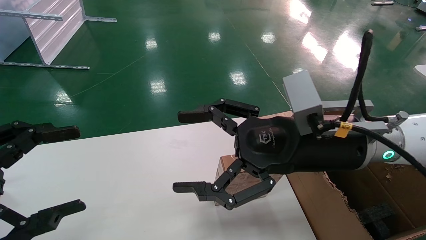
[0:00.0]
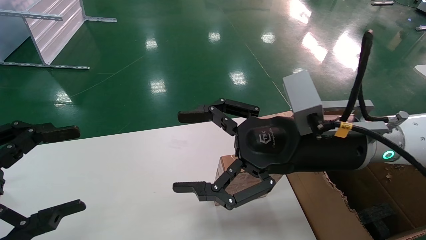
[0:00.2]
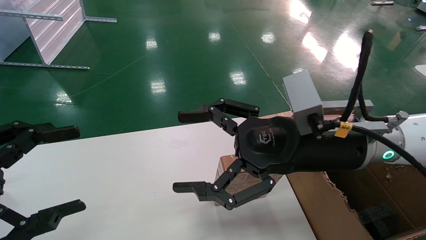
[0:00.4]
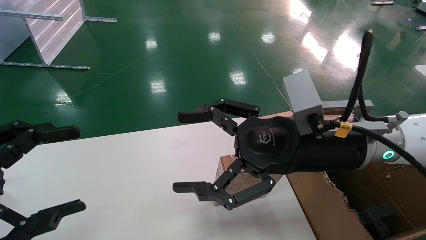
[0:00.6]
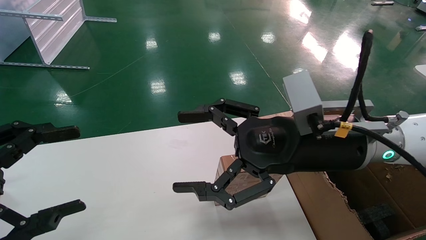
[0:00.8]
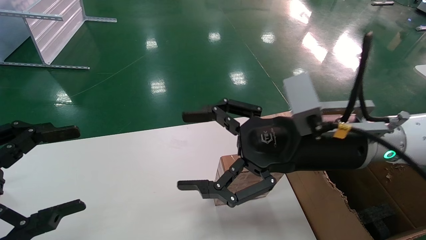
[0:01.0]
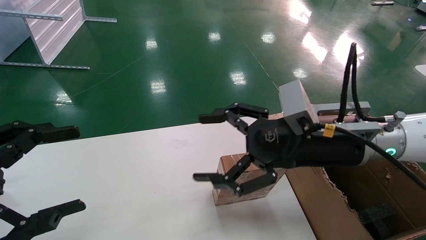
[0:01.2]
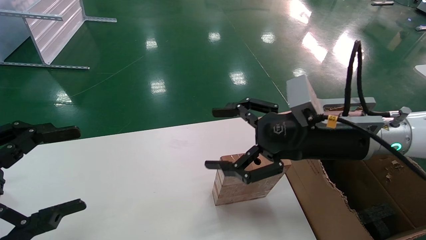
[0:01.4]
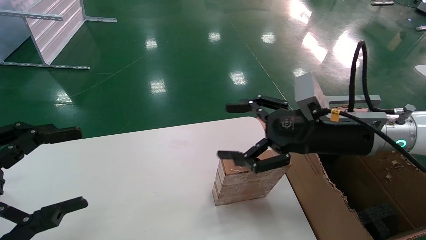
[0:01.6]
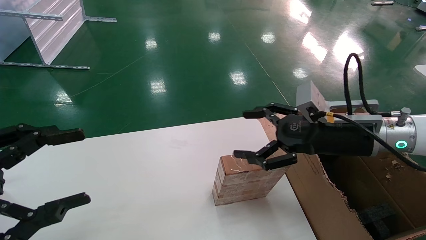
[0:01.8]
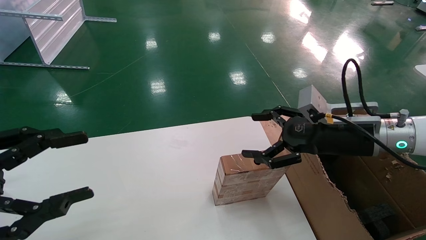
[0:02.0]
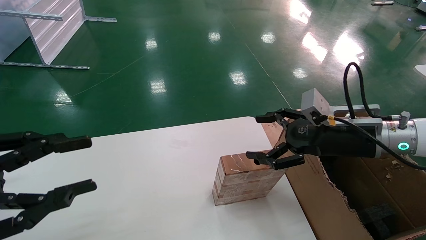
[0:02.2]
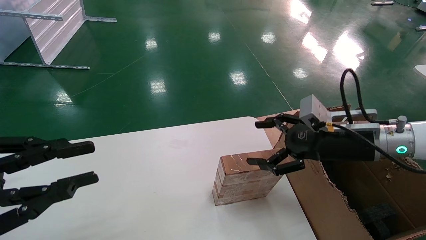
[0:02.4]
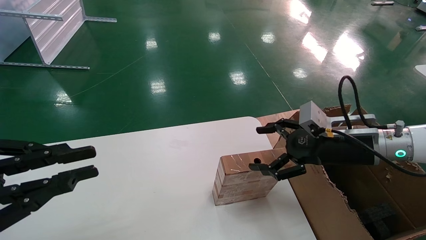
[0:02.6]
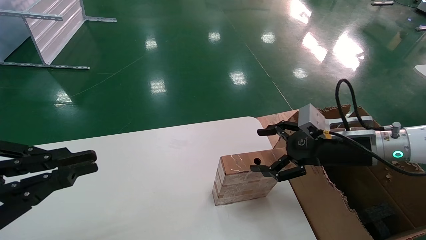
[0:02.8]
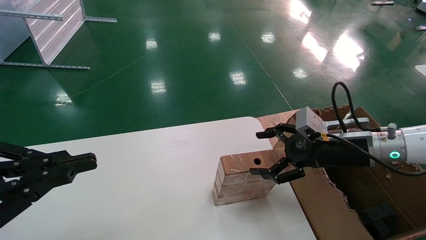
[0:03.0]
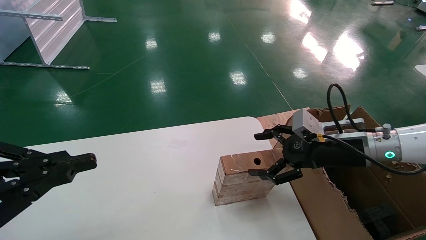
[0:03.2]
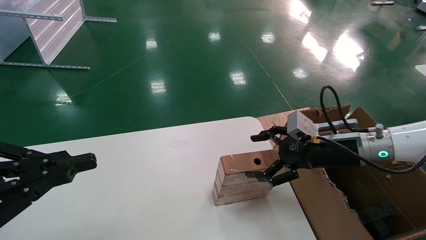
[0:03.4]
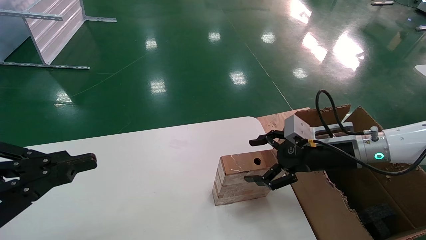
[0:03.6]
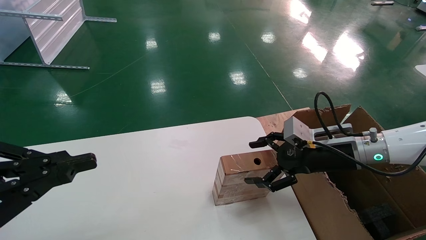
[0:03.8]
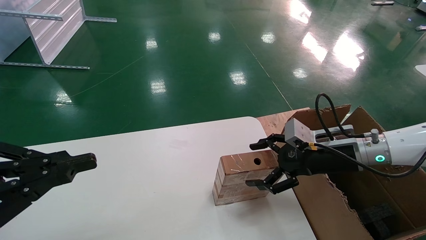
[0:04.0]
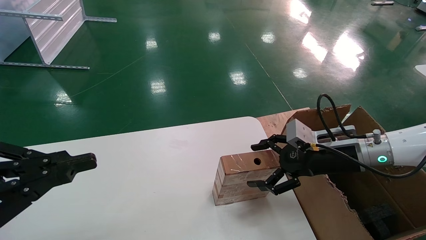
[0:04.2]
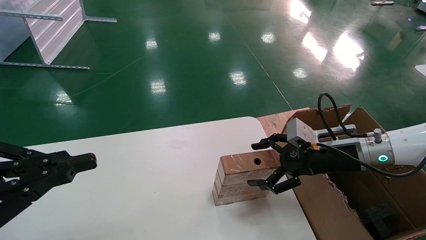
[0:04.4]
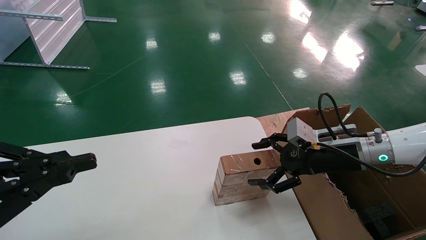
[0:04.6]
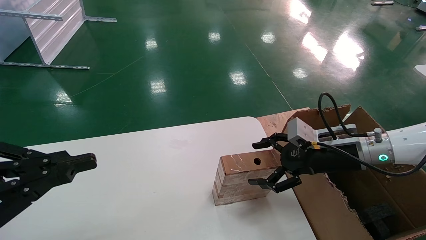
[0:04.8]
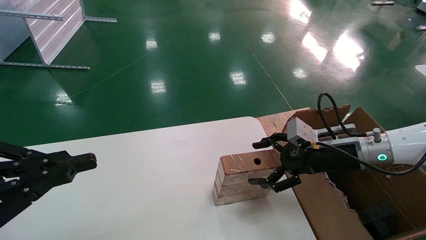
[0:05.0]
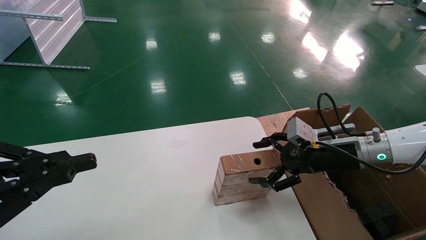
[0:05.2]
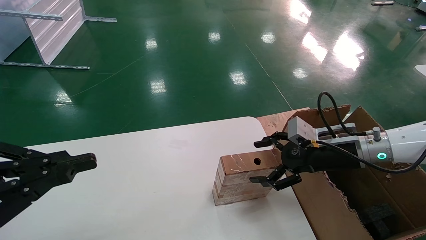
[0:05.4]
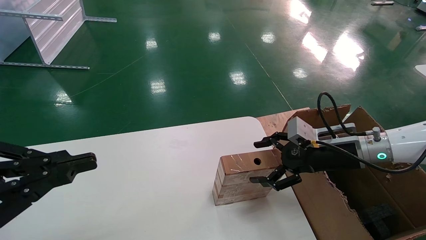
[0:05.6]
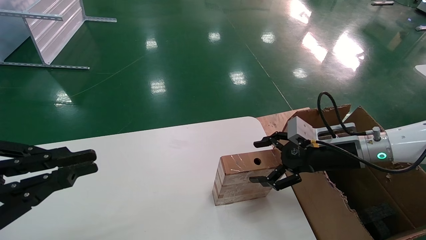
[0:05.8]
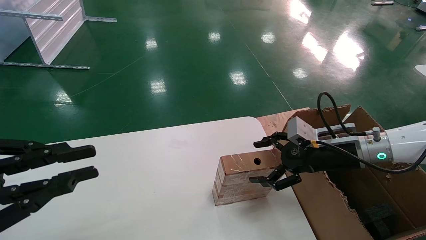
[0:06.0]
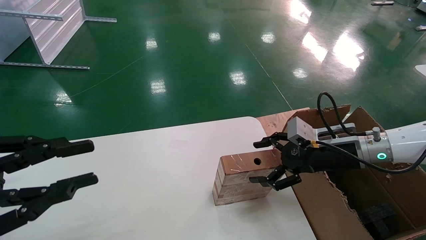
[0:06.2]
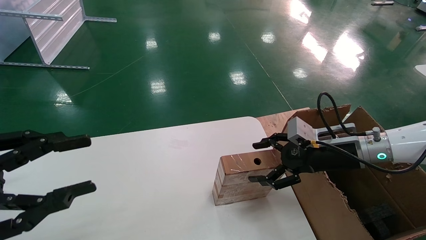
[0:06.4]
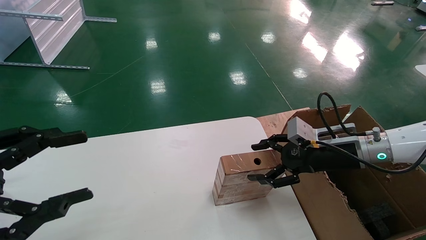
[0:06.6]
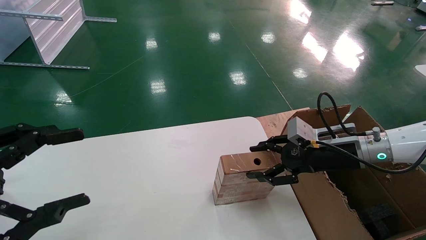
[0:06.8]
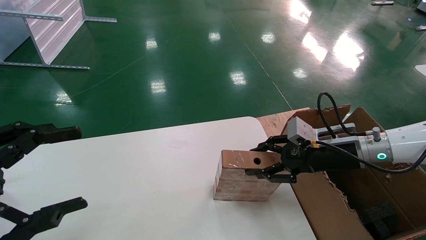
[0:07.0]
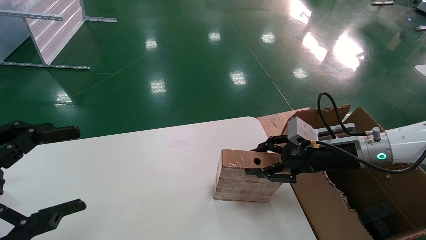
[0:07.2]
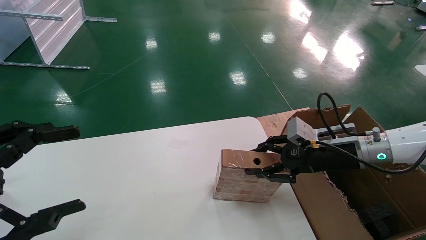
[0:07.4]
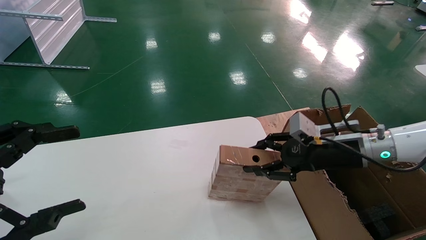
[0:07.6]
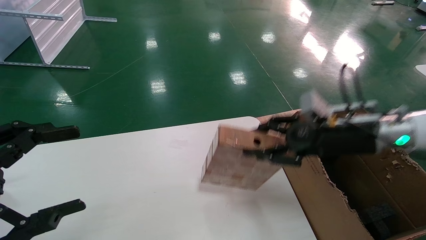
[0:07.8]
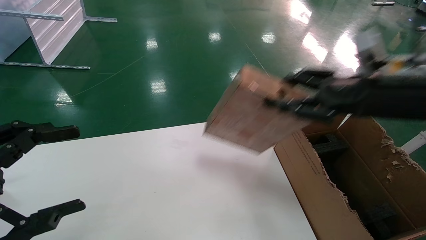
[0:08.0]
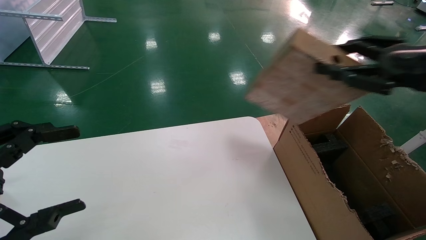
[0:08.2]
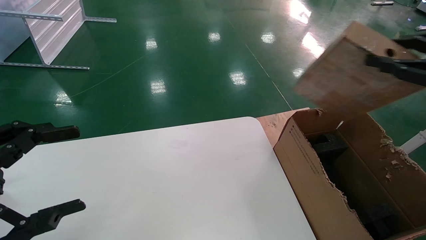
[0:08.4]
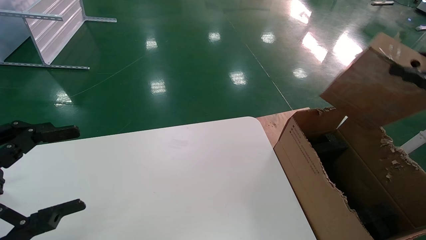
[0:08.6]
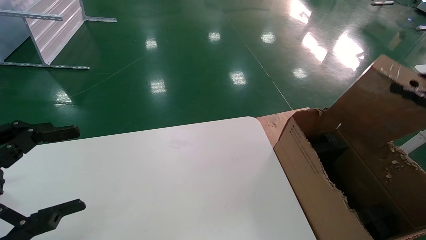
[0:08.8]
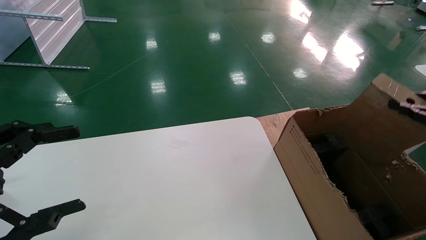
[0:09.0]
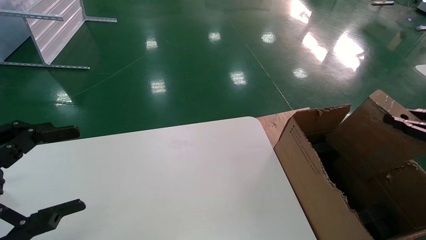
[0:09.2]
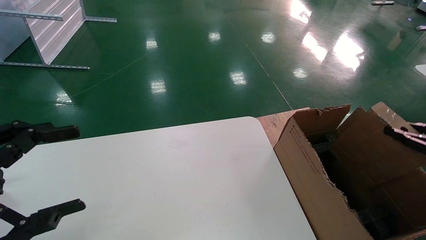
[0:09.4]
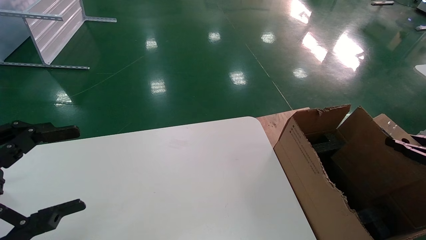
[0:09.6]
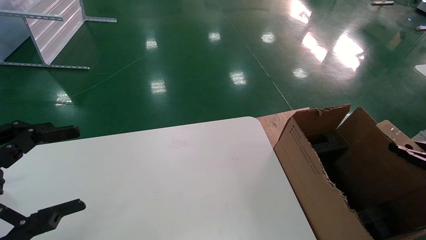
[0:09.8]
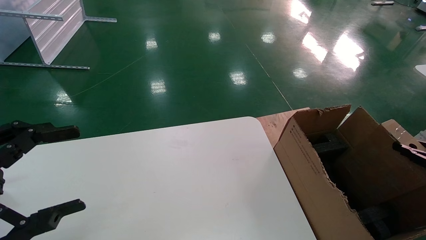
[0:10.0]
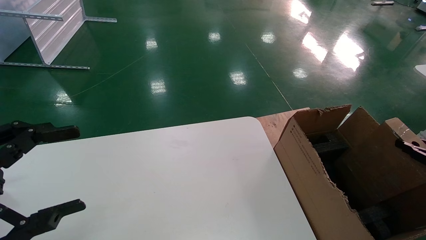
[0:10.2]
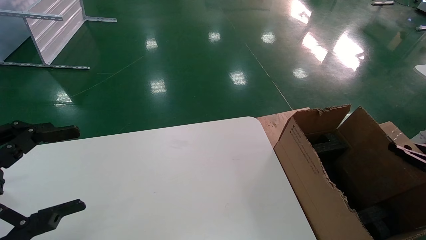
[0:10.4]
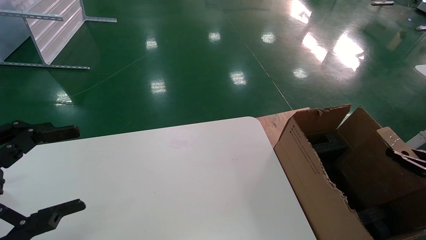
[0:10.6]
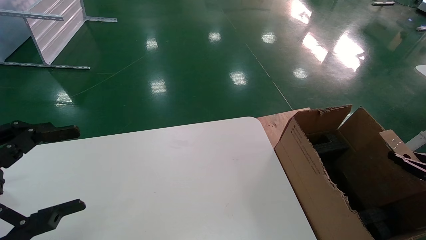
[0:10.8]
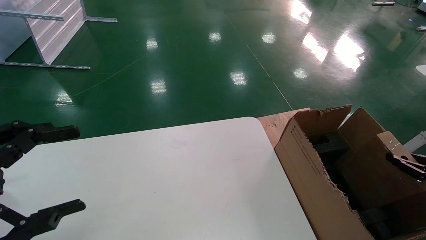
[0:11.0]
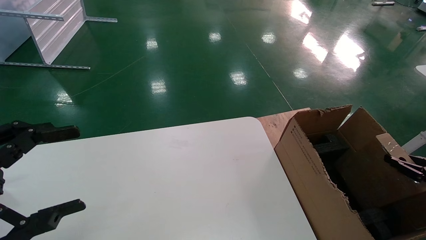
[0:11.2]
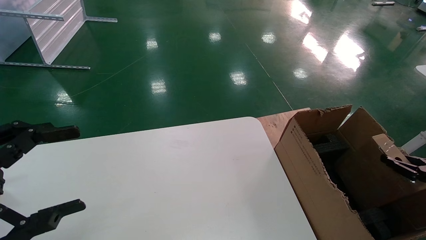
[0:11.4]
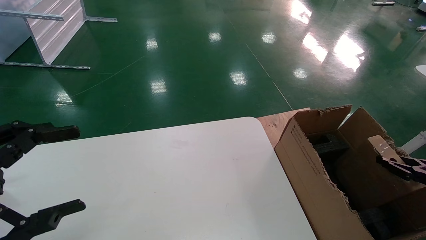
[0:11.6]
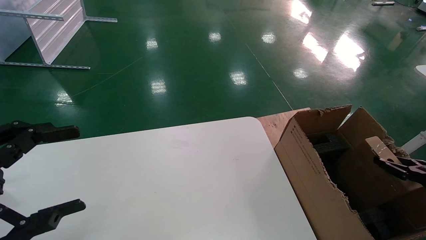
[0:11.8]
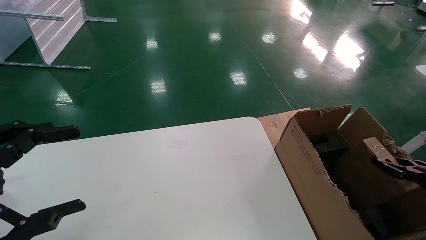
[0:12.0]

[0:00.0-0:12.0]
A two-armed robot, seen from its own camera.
Task of the whole recording: put the box on the table into the big box.
Step, 0:01.4 to 0:07.2: Pick up the mouse and the power cord paper box.
0:00.0 to 0:01.6: The right gripper shifts some 5 cm to the right.
0:01.6 to 0:03.0: The right gripper moves to the right and downward, approximately 10 cm, while the left gripper closes.
0:03.0 to 0:04.4: There are only small adjustments of the grippers.
0:04.4 to 0:06.0: Both grippers stay put.
0:06.0 to 0:07.6: The right gripper closes up. The left gripper opens its fingers.
0:07.6 to 0:09.0: The right gripper heads to the right and backward, covering some 25 cm.
0:09.0 to 0:10.4: The right gripper travels downward by roughly 15 cm.
0:10.4 to 0:12.0: The right gripper changes place by roughly 5 cm.

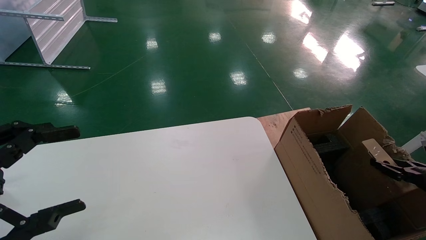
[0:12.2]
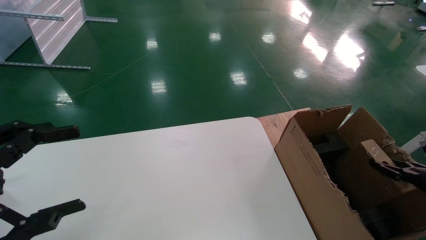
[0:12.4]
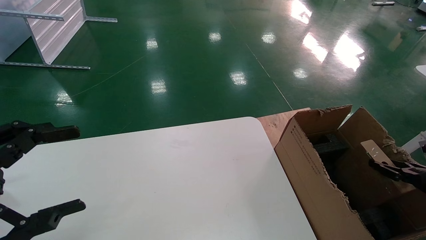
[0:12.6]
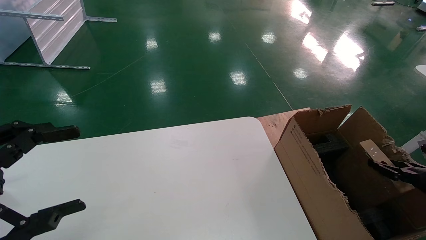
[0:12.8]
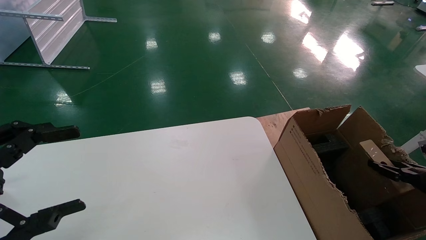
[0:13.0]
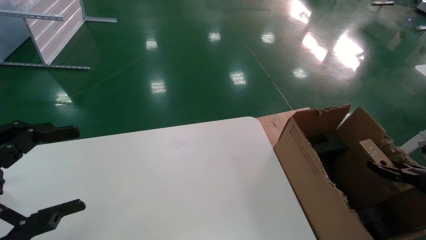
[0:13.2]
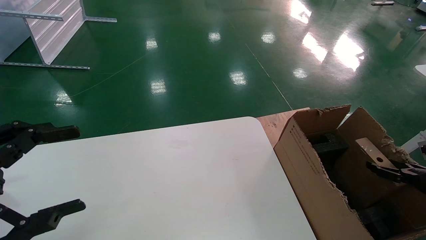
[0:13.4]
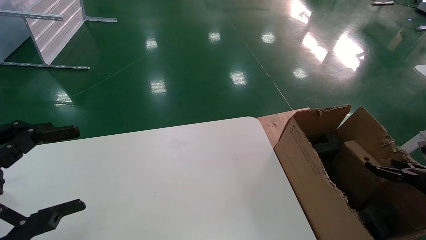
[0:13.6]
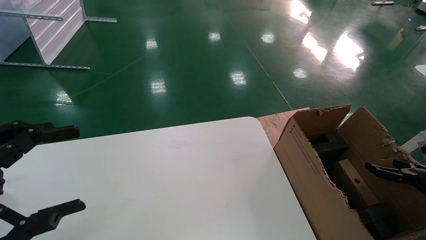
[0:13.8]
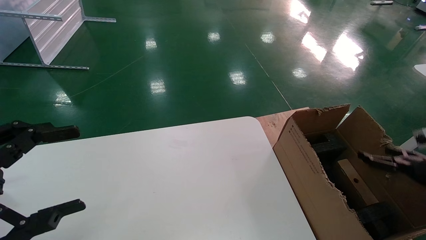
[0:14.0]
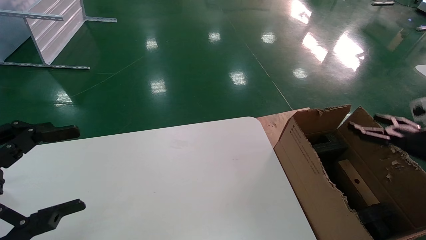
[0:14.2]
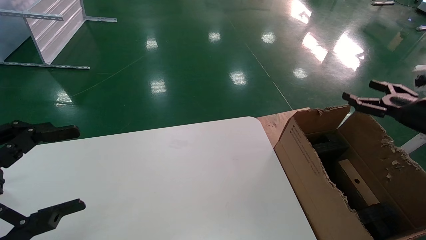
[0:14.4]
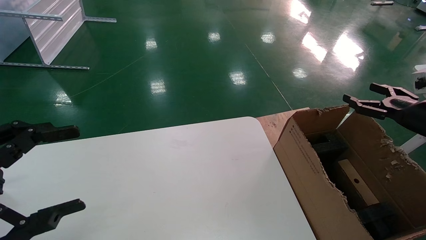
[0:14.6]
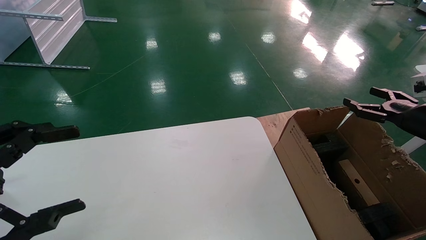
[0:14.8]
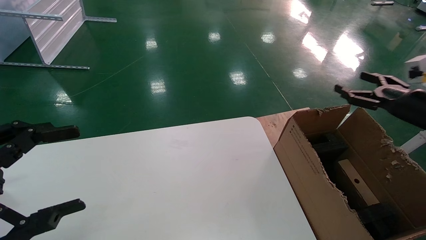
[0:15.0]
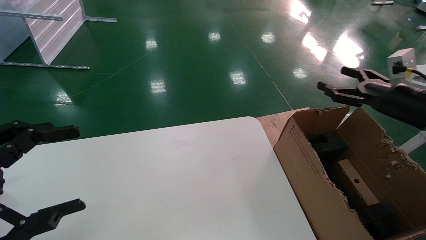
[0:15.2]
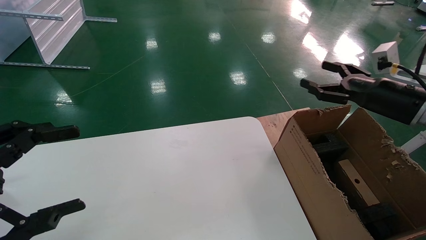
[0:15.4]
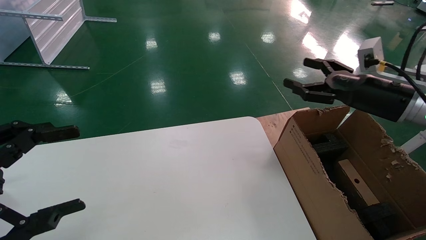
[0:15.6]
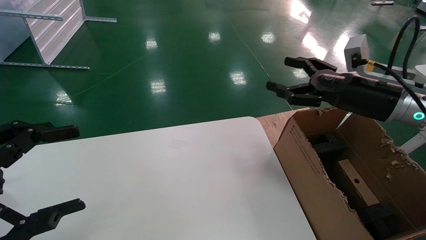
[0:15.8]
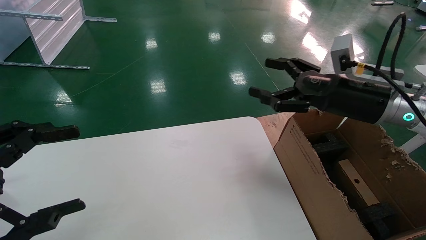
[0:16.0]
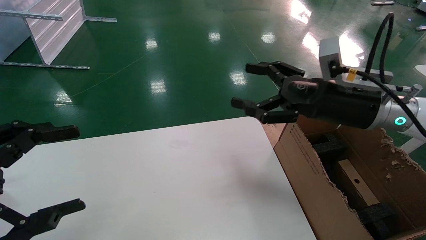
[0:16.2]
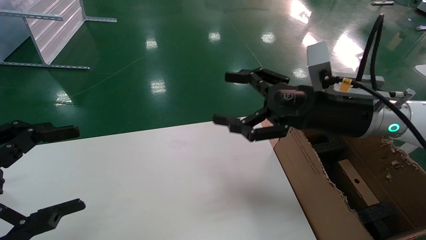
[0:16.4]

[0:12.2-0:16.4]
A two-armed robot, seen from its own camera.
Task of the whole recording: put the box on the table into the big box.
0:12.2 to 0:13.6: The right gripper opens its fingers.
0:13.6 to 0:15.0: The right gripper heads upward, to the left and forward, covering roughly 20 cm, and opens its fingers.
0:15.0 to 0:16.4: The right gripper moves to the left, about 25 cm.
